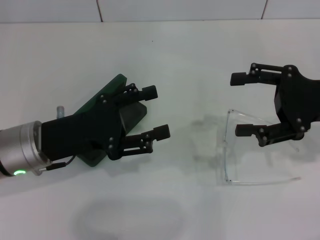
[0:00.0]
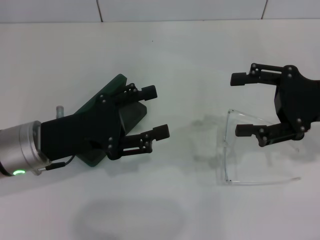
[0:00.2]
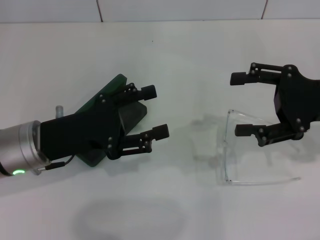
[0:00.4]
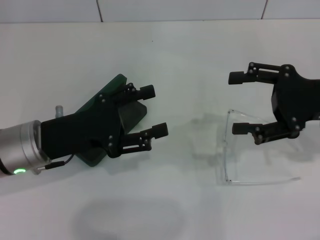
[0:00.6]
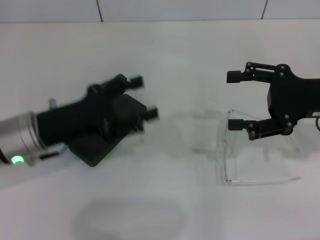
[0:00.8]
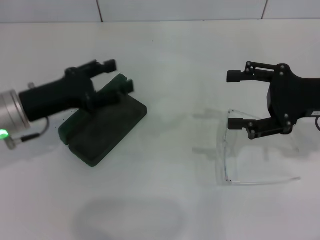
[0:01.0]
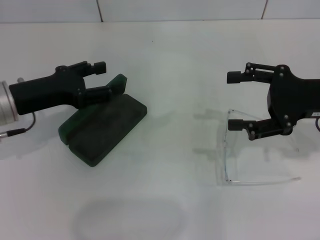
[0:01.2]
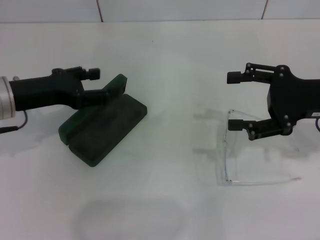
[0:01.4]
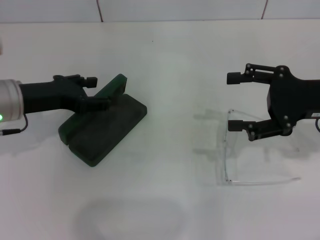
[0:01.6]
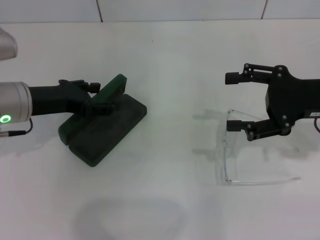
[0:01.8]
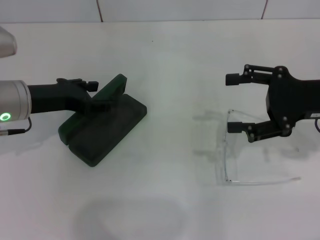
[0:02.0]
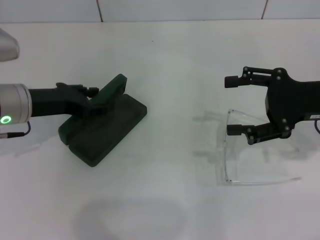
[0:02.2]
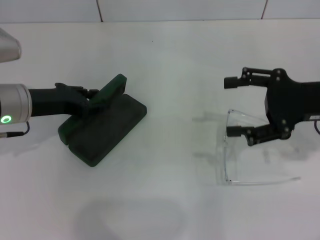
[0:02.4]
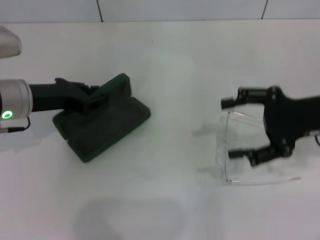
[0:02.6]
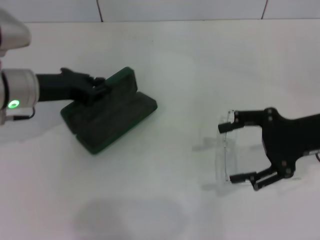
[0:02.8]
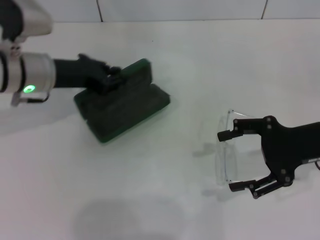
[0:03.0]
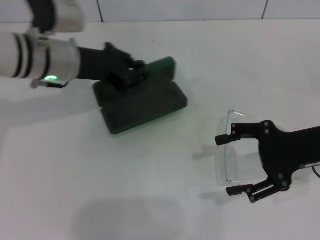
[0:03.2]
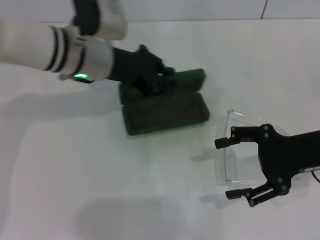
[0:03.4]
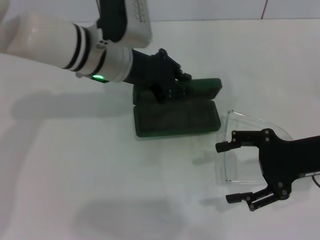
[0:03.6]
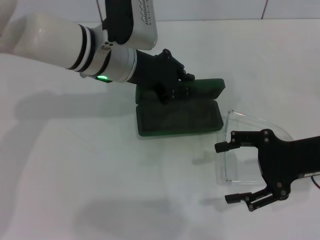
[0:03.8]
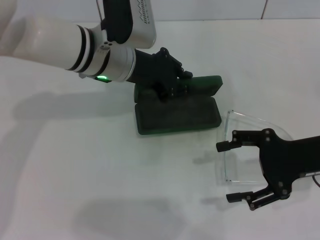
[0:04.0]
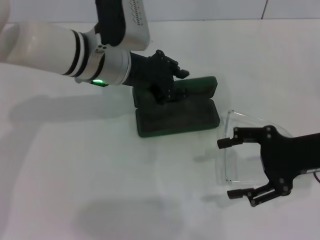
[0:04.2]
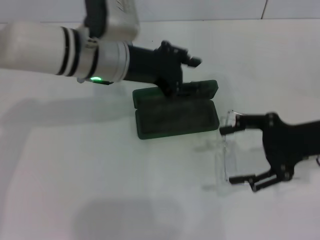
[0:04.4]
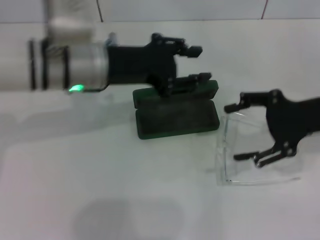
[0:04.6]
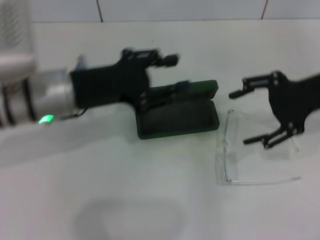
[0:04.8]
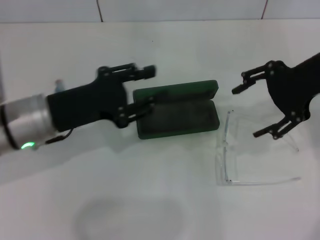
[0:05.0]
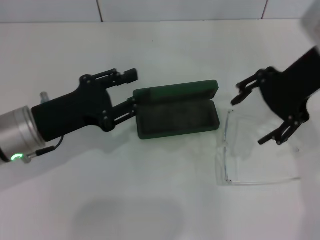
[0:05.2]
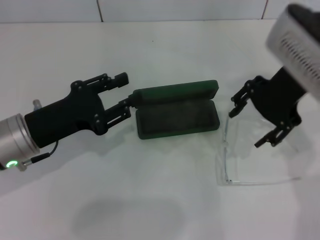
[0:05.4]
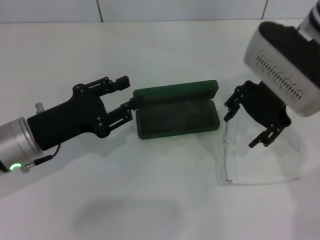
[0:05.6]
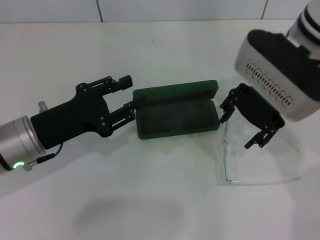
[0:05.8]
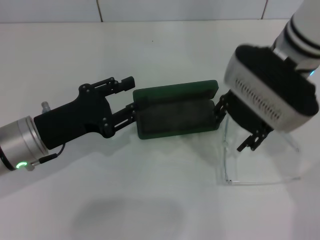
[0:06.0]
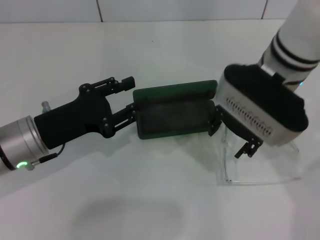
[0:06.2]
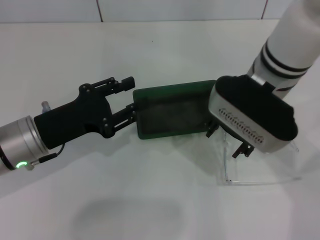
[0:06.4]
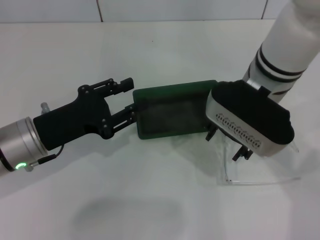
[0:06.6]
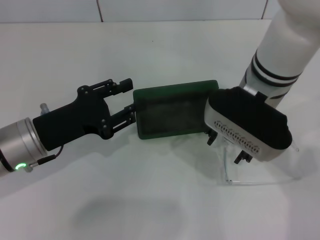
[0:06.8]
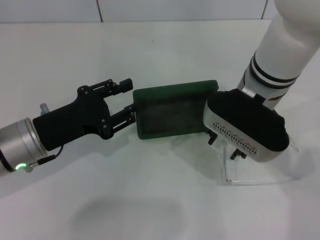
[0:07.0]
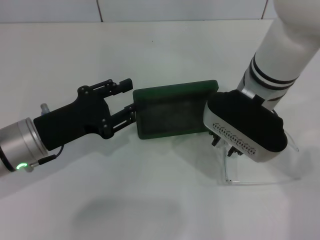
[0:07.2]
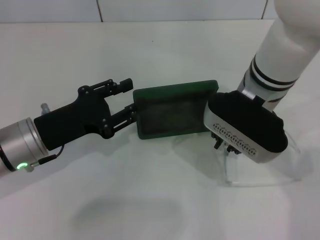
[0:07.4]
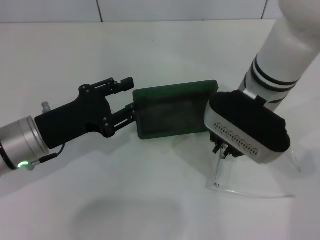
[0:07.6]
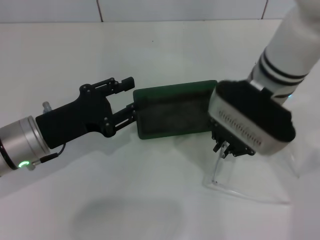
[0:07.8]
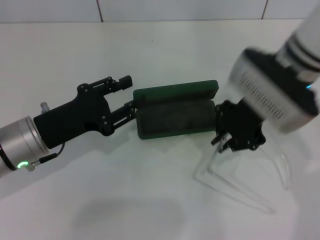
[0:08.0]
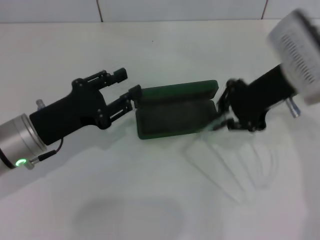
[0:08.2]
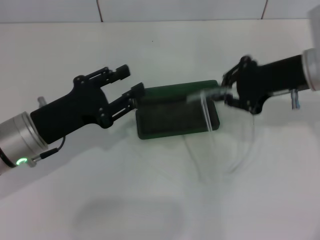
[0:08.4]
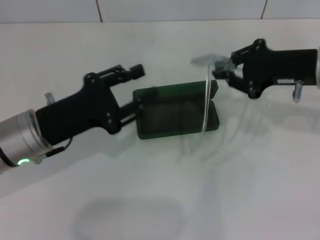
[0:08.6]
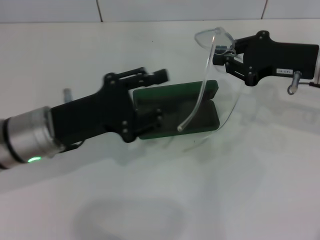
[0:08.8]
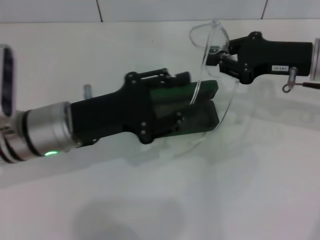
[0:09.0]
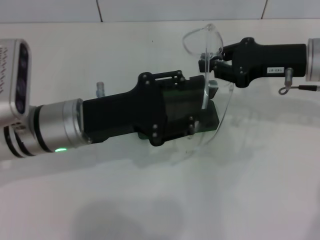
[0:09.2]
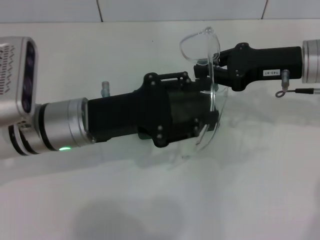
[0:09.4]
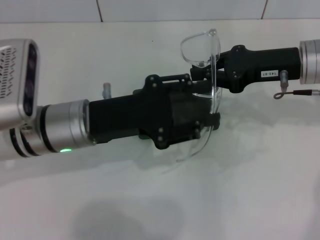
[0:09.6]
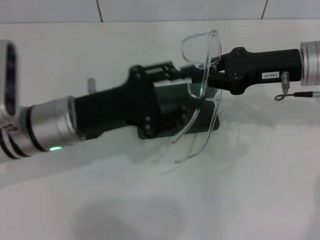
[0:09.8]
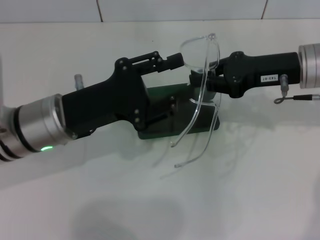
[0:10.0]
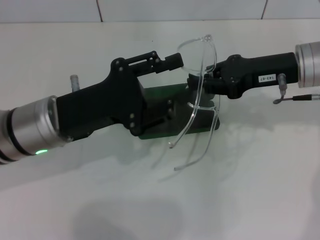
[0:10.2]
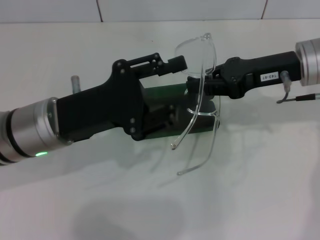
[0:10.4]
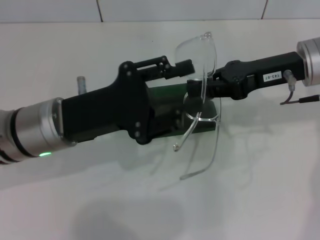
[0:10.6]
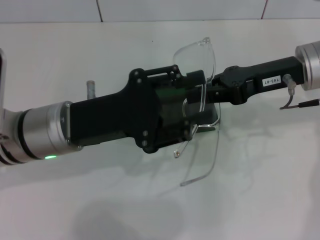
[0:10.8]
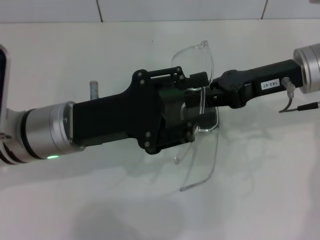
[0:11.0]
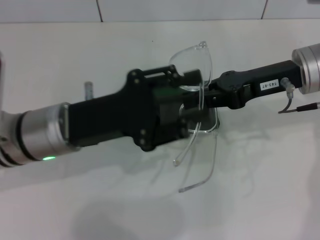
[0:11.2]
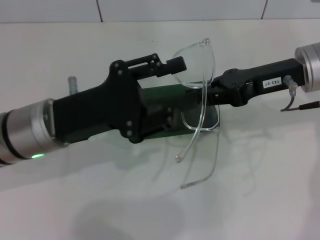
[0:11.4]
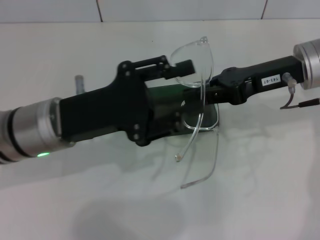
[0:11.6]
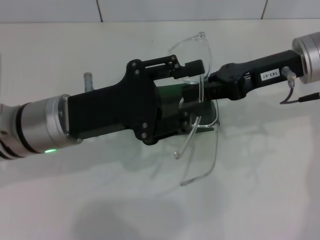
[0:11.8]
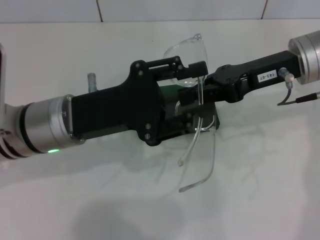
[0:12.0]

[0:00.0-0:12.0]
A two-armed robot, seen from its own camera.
Step, 0:00.0 to 0:02.4: Grab the glasses case with your left hand.
Step, 0:02.6 to 0:04.0: Place the glasses case in the center of the table with your left hand.
Step, 0:04.2 to 0:07.4: Grab the eyeglass frame with your right hand.
0:00.0 to 0:01.6: The left gripper shifts roughly 5 cm forward.
0:01.6 to 0:03.0: The left gripper is displaced forward by about 5 cm, and closes its fingers.
0:03.0 to 0:04.4: The left gripper is displaced to the right by approximately 10 cm.
0:04.4 to 0:06.0: The right gripper travels to the left, upward and forward by roughly 15 cm; the left gripper travels to the left, backward and downward by some 15 cm.
0:06.0 to 0:07.6: The right gripper moves approximately 5 cm, and closes its fingers.
0:07.6 to 0:09.0: The right gripper shifts approximately 15 cm to the right; the left gripper is displaced to the right by about 5 cm.
0:10.4 to 0:12.0: The grippers move only a little.

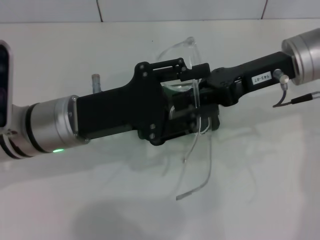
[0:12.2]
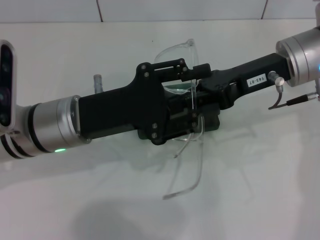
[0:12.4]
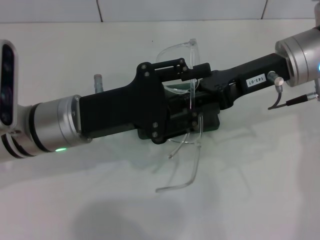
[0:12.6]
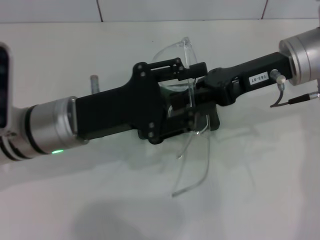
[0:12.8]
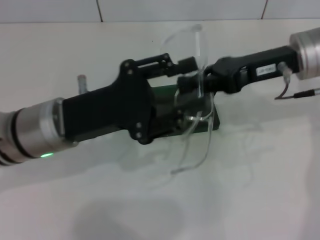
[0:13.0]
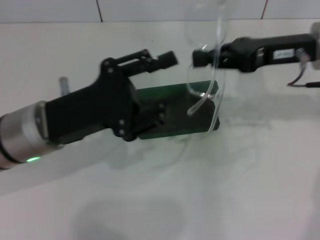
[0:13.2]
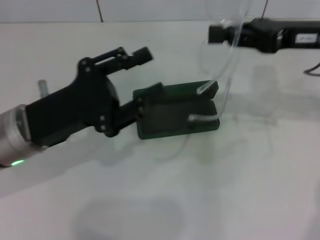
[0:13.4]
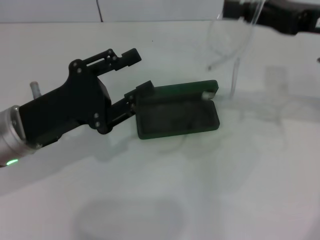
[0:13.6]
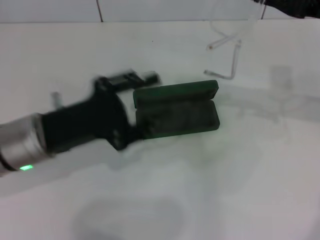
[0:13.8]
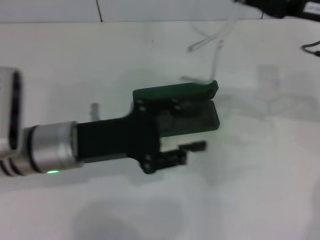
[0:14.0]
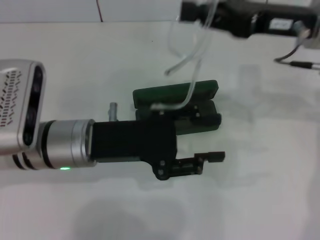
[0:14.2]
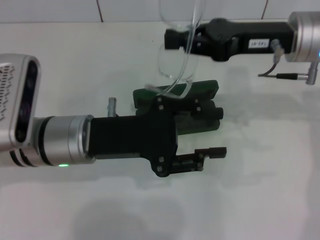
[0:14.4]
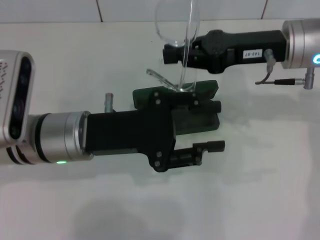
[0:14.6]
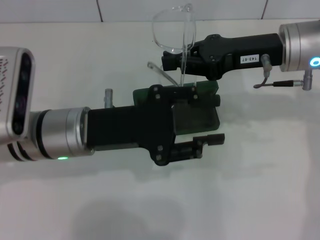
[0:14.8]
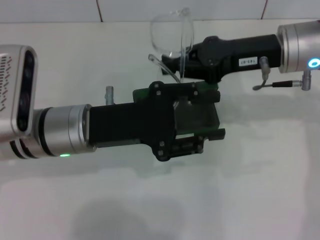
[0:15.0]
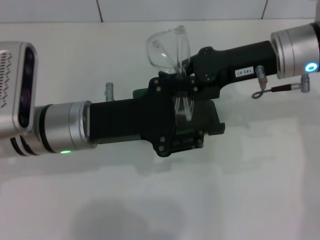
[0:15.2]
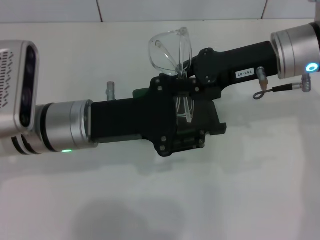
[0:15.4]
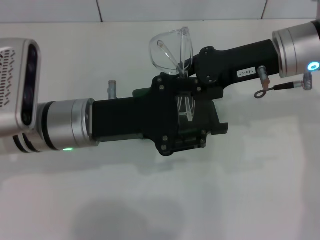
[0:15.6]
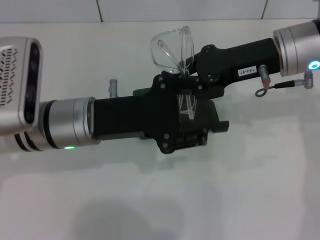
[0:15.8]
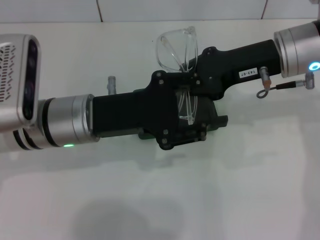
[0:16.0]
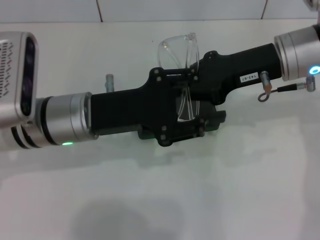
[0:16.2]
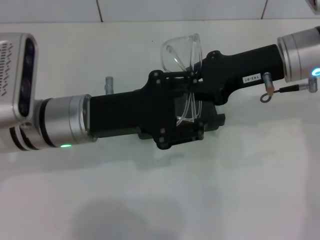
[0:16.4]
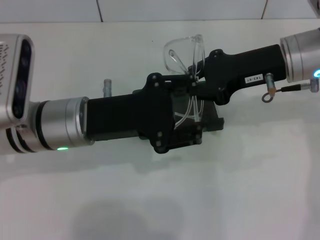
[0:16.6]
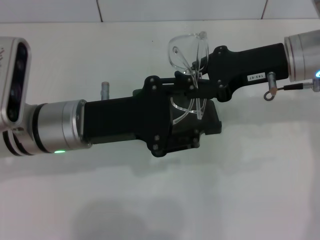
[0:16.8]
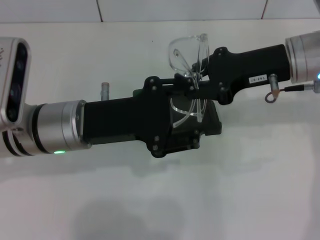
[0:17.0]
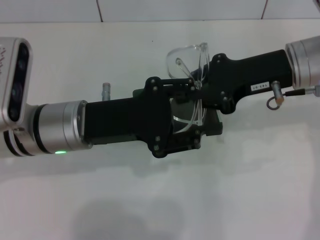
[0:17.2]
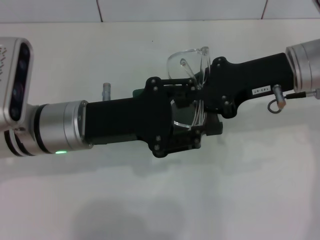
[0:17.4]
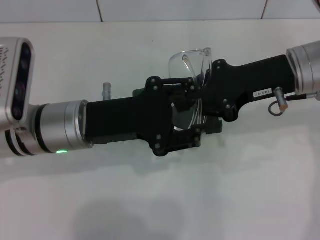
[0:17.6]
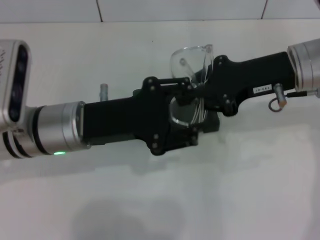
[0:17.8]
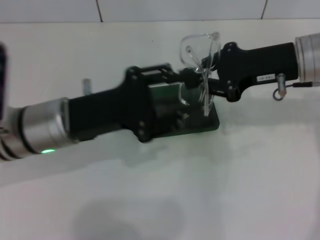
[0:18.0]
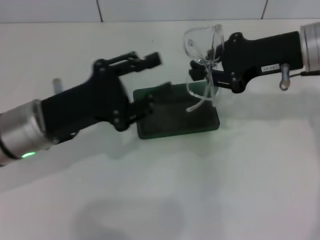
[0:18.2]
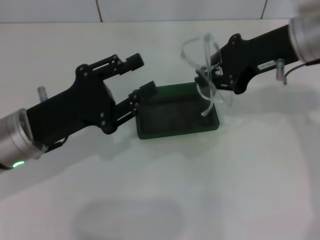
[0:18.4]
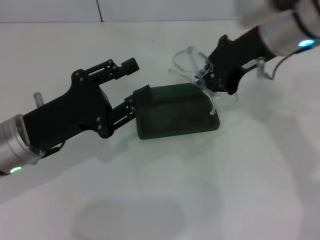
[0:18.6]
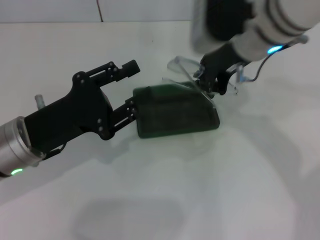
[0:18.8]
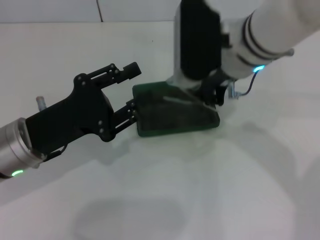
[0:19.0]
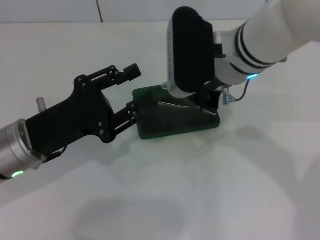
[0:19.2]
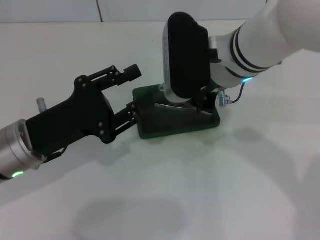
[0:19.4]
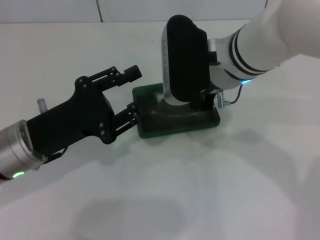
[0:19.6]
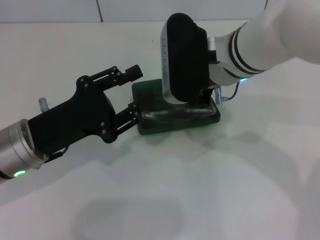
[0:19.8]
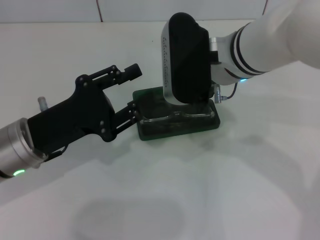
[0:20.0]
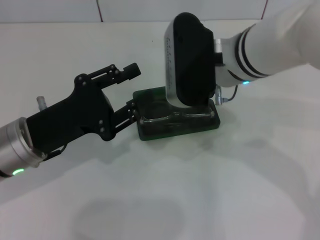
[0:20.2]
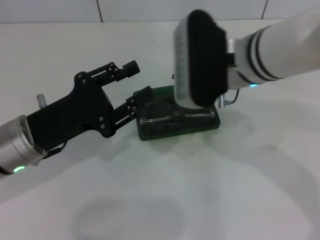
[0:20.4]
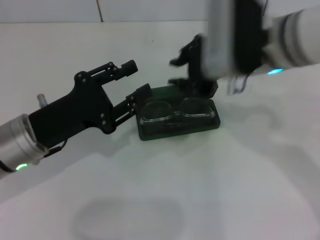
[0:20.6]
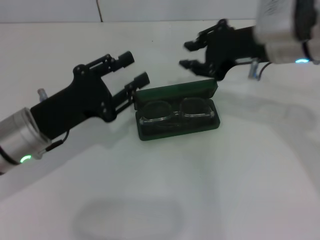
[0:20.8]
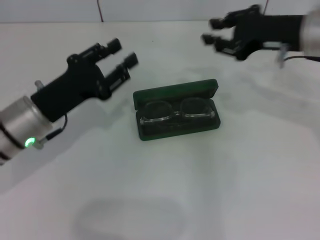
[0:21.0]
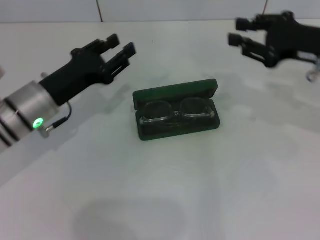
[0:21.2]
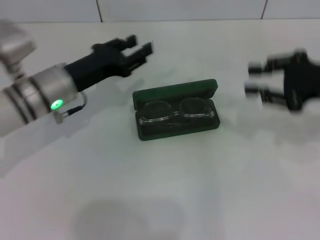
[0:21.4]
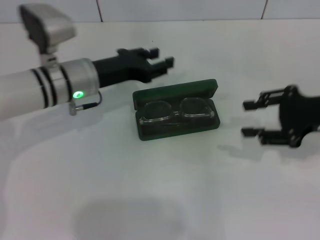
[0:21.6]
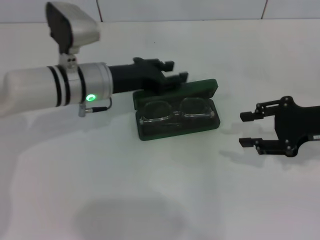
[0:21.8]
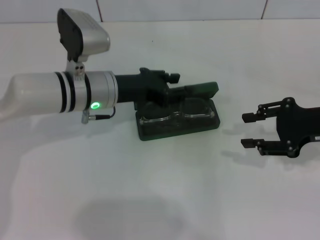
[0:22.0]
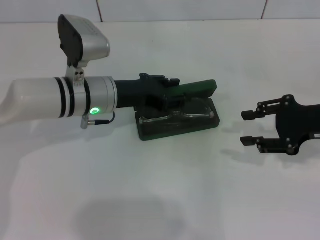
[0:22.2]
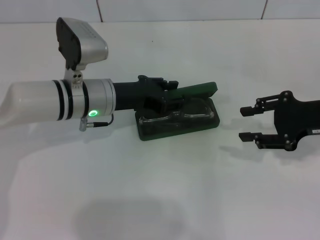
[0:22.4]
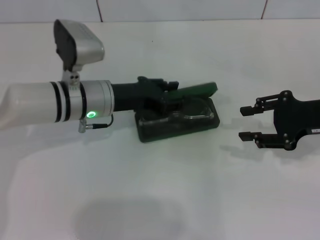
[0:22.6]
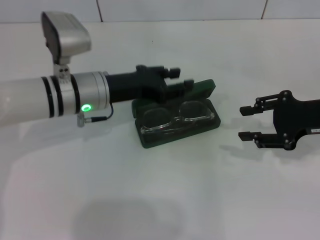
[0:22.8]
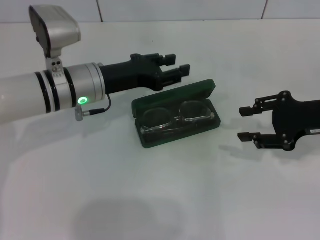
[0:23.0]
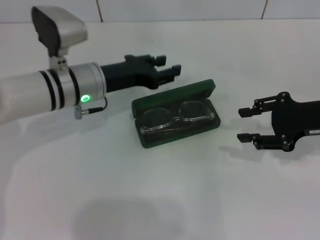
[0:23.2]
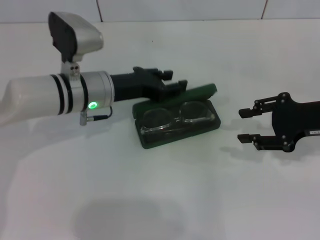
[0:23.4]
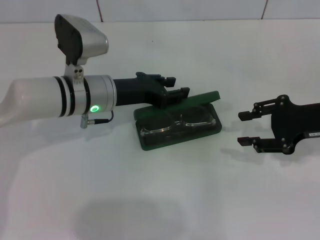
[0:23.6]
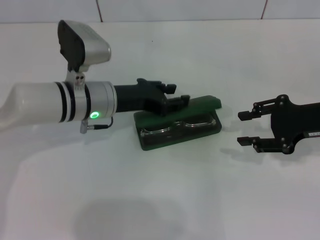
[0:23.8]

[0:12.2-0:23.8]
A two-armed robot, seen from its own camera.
Step, 0:12.2 to 0:15.8: Fold the frame with your left hand.
Step, 0:16.0 to 0:19.8: Put the glasses into the case with your right hand.
0:12.2 to 0:13.6: The left gripper moves to the left, some 5 cm. The right gripper travels to the right by approximately 5 cm.
0:13.6 to 0:15.0: The right gripper goes about 10 cm to the left. The left gripper goes approximately 5 cm to the right.
0:15.0 to 0:16.6: There are only small adjustments of the grippers.
0:16.6 to 0:18.0: The grippers move only a little.
0:18.0 to 0:19.4: The left gripper ends up roughly 5 cm from where it was. Meanwhile the right gripper shifts approximately 15 cm to the left.
0:19.4 to 0:21.0: The right gripper travels to the right by approximately 15 cm.
0:21.0 to 0:22.4: The left gripper goes approximately 10 cm to the right and forward, while the right gripper shifts about 10 cm to the right, downward and backward.
0:22.4 to 0:23.8: The grippers stay close to where they were, moving slightly.
